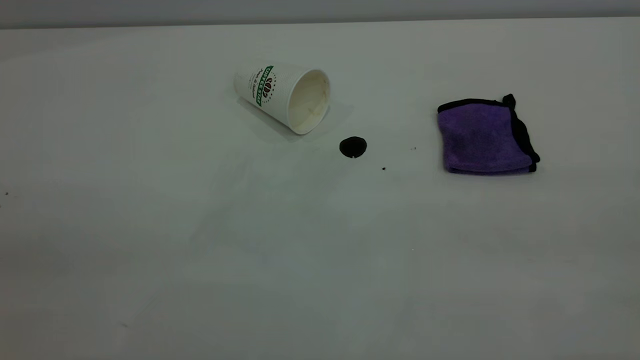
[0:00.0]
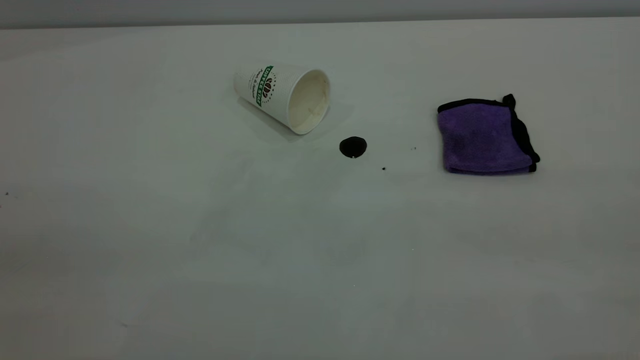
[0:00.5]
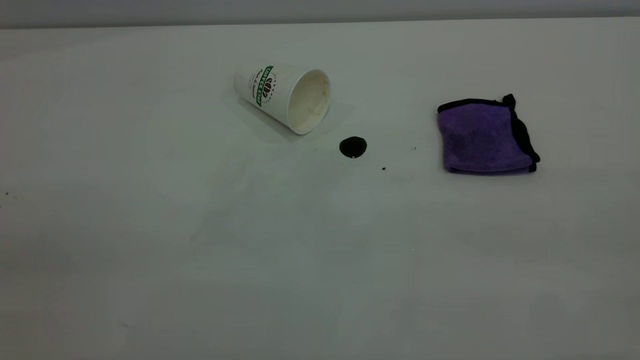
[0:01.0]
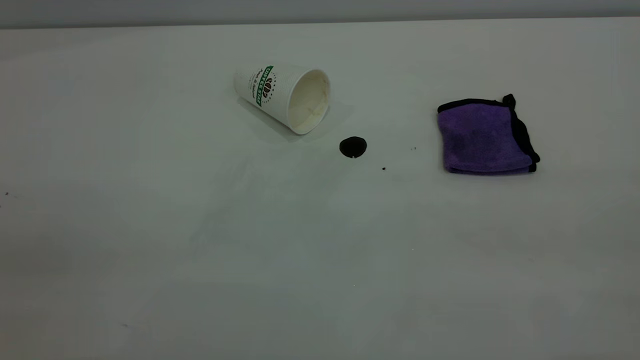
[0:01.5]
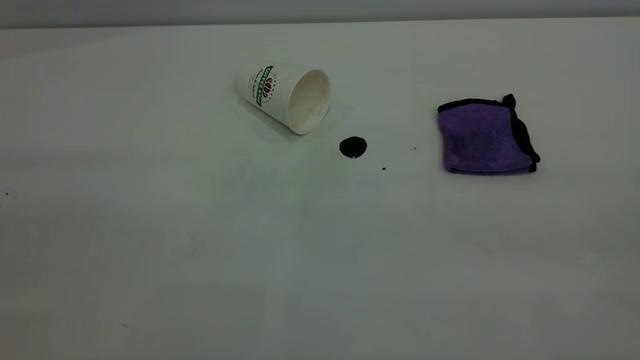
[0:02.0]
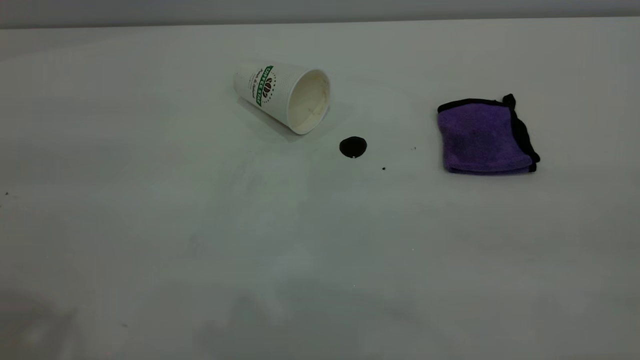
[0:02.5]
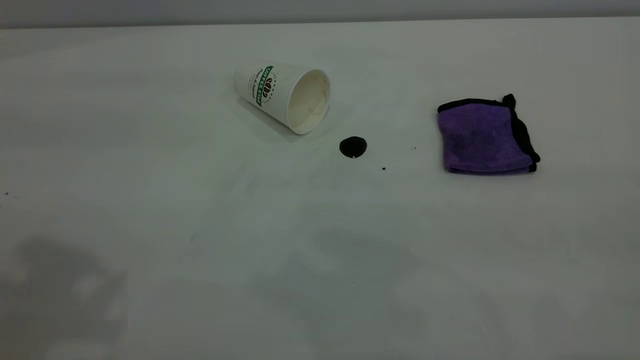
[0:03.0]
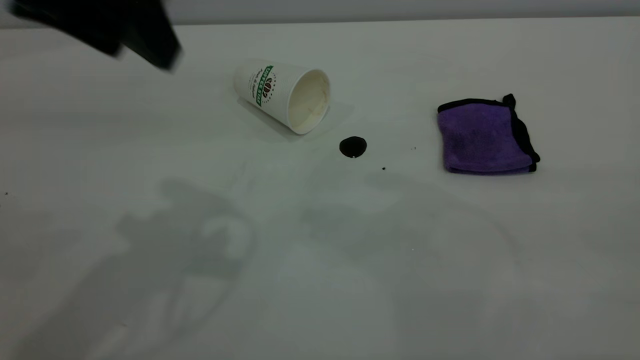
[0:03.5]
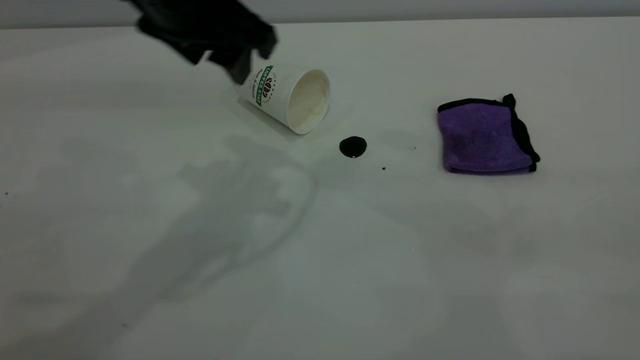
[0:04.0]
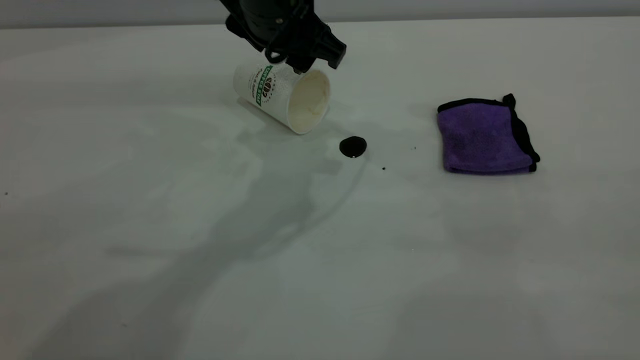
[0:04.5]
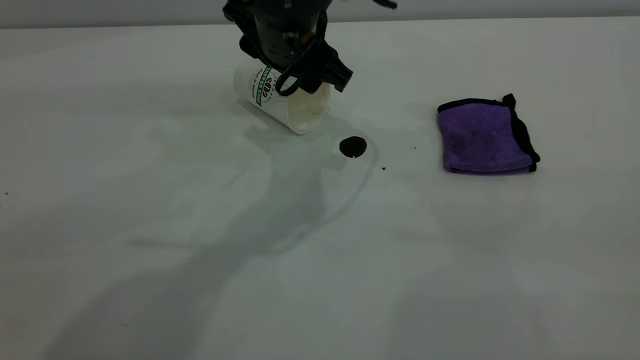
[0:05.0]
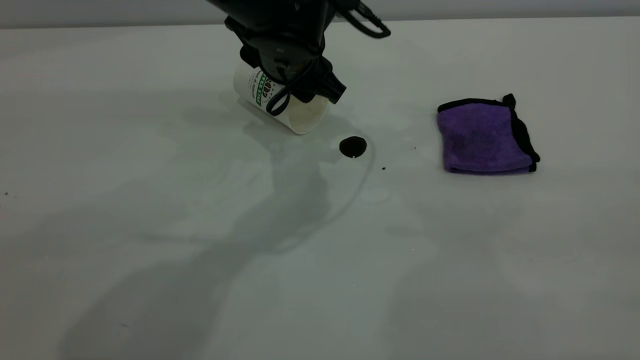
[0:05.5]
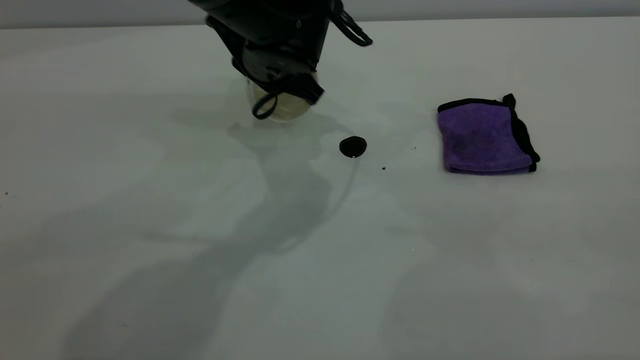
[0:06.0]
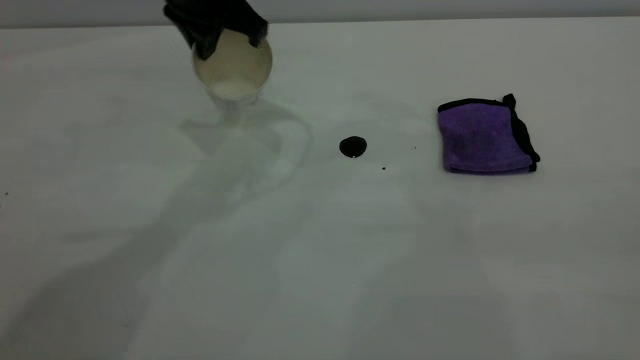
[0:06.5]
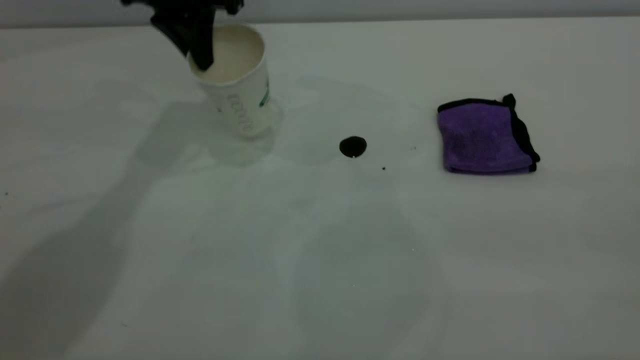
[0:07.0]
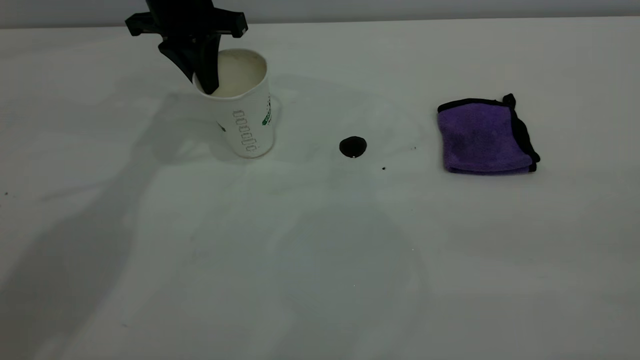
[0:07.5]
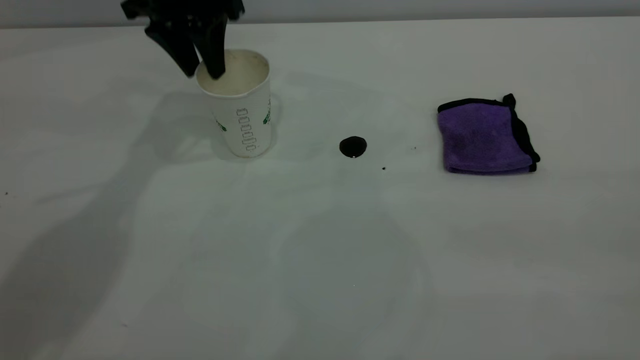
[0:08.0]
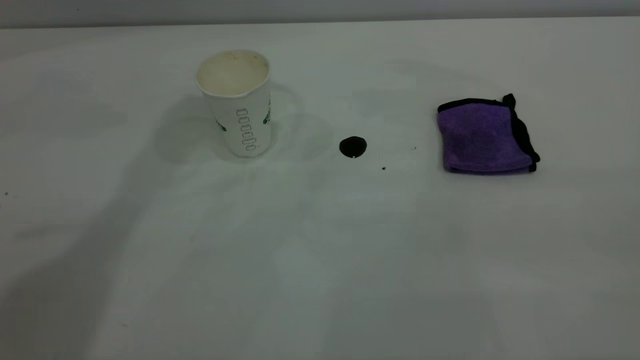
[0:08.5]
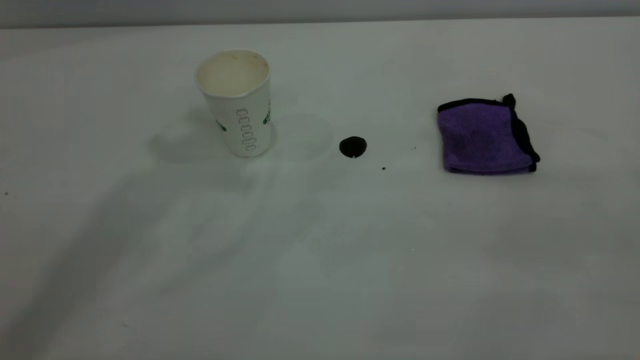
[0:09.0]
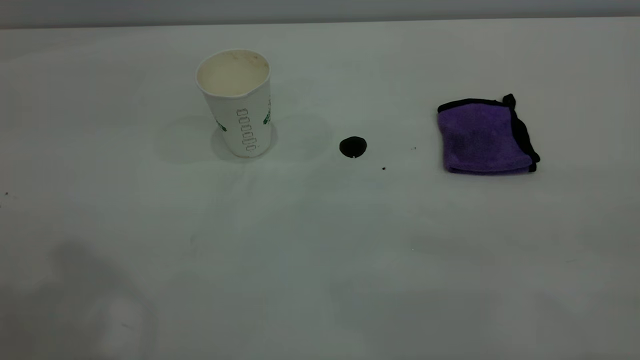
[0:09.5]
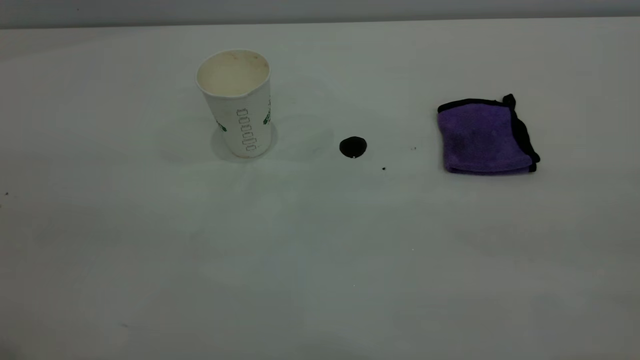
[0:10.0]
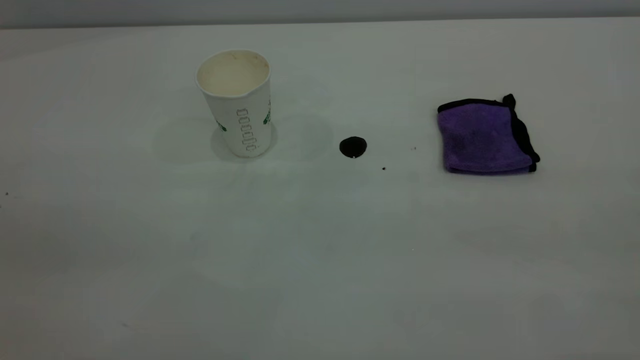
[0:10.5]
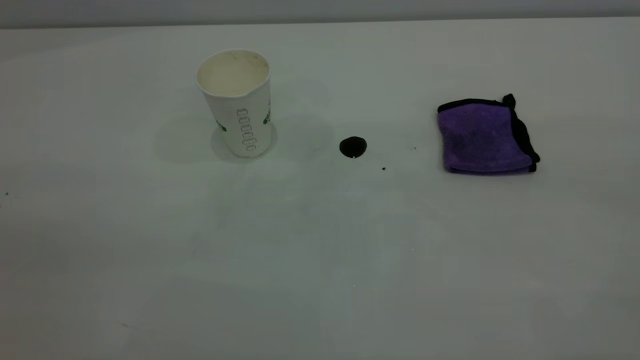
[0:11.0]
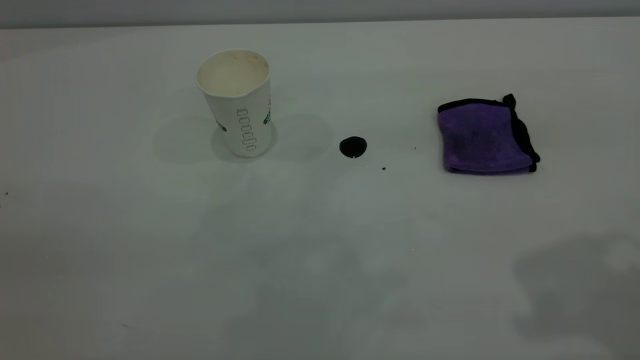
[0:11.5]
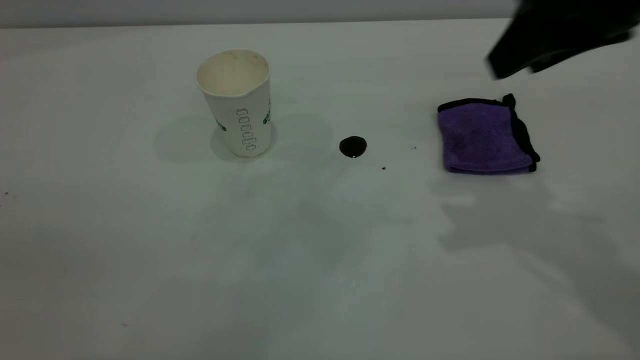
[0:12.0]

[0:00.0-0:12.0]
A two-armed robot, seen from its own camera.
Task of the whole recording: the left gripper pick up the fallen cup and place it upright, the right gripper grasp the purple rag and wipe the coffee stain on the table, the right gripper put the purple rag back in its original position.
Step, 0:00.0 to 0:08.0: Stand the paper cup upright.
0:02.0 to 0:04.0: The left gripper goes approximately 40 cm forward, to the right and downward.
0:04.0 to 0:06.0: The left gripper travels downward and forward by some 15 cm, and closes its fingers.
0:06.0 to 0:08.0: The left gripper goes roughly 15 cm to the left, forward and upward, and opens up.
0:08.0 to 0:10.0: The left gripper goes some 40 cm backward.
0:10.0 to 0:12.0: The right gripper is displaced forward by roughly 30 cm.

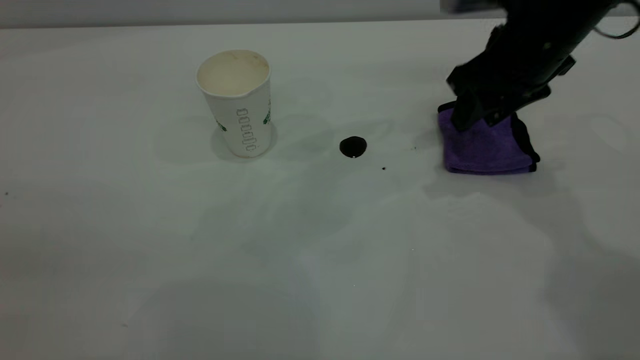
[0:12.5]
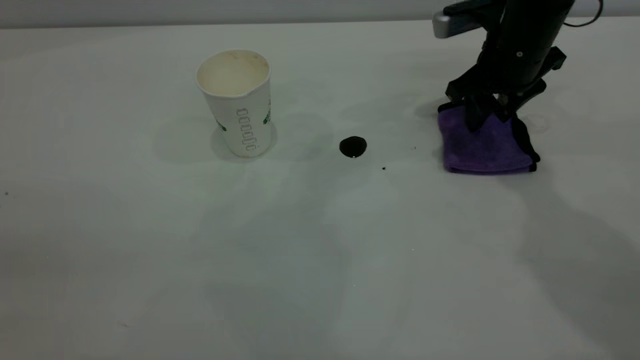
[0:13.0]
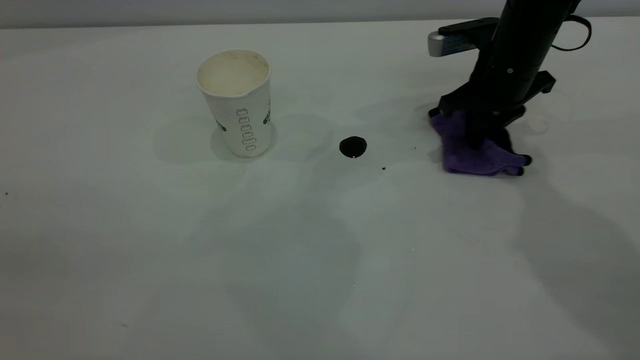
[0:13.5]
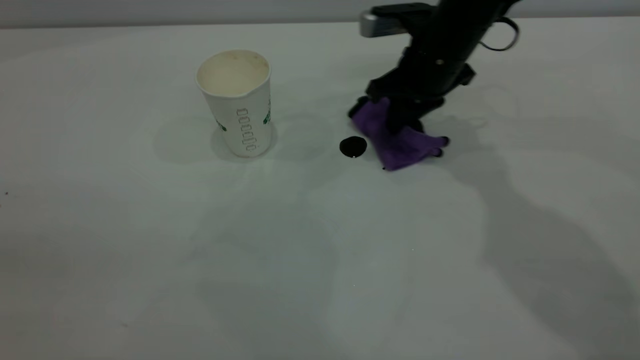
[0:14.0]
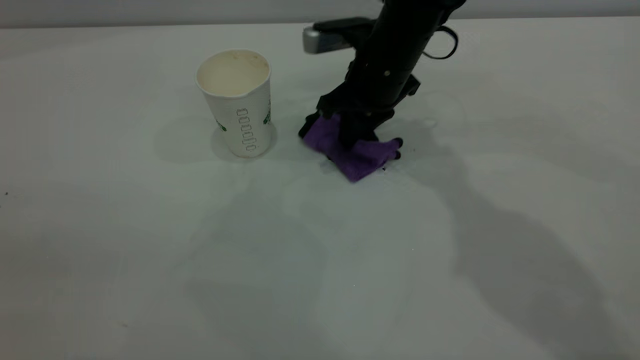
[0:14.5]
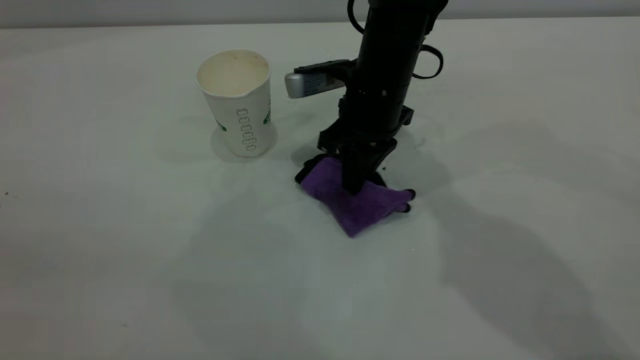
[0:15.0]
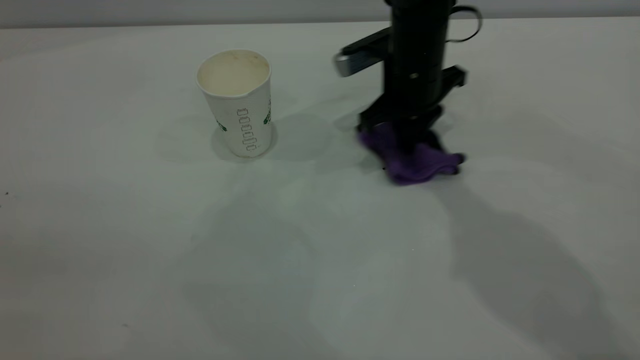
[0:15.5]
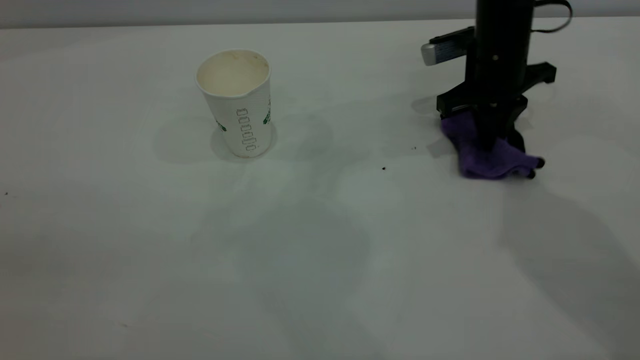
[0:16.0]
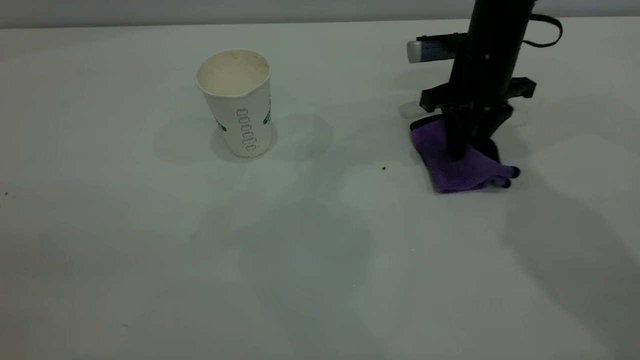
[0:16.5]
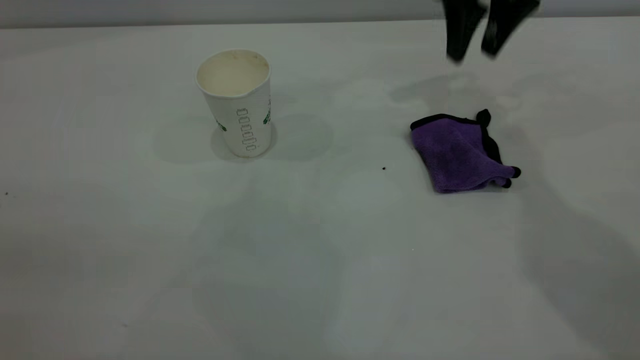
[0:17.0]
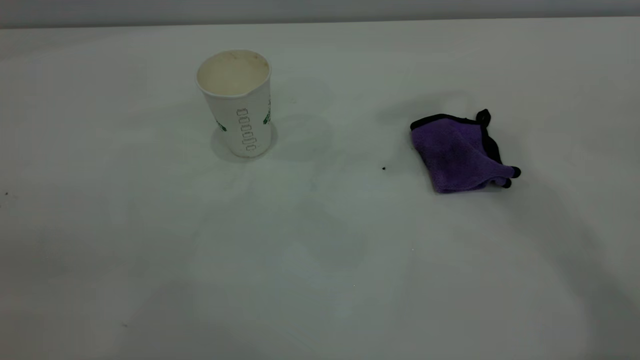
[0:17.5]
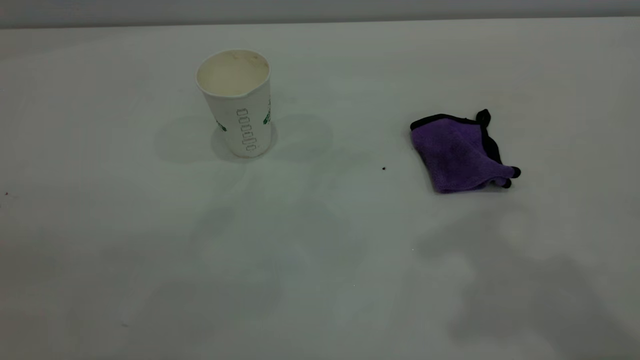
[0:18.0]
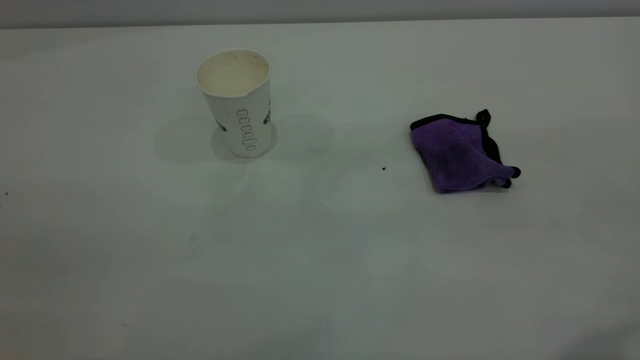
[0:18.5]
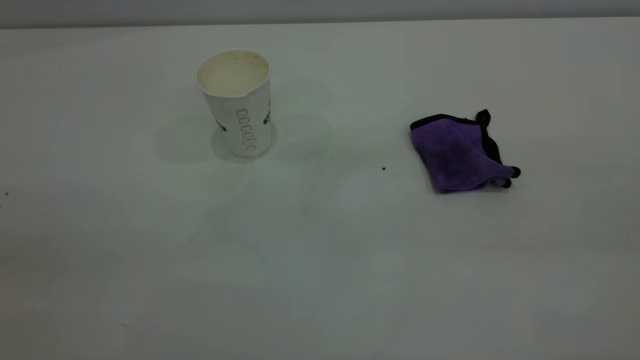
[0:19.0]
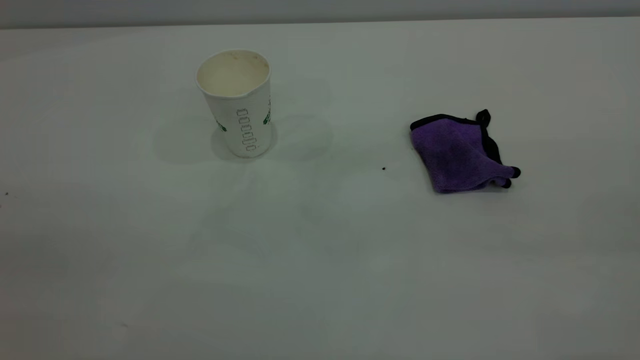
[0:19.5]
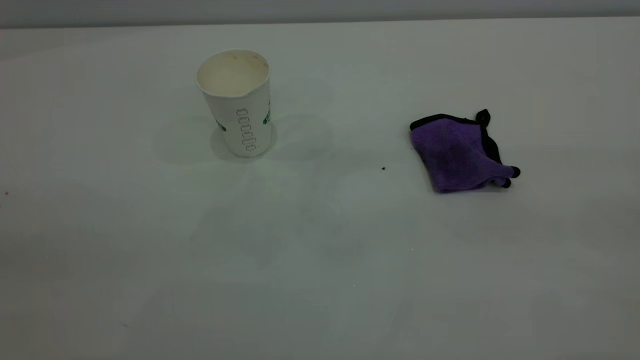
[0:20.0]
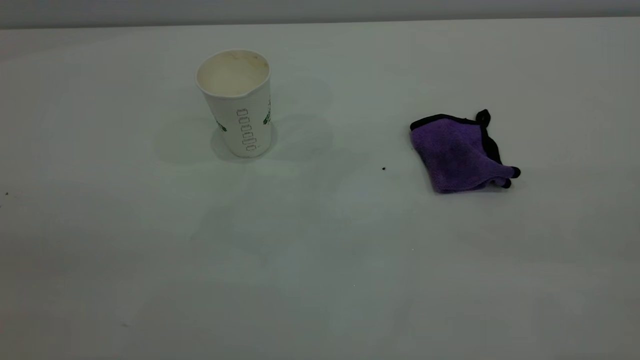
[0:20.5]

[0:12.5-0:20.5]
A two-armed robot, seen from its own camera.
Task of the whole recording: the left gripper pick up the fallen cup and place it upright, the right gripper grasp the purple rag and wipe the coffee stain on the table, the right gripper put the purple rag back in its original position.
Step, 0:12.5 to 0:16.5: Wipe the stains off the table with a rag.
0:12.5 to 0:14.5: The right gripper is displaced to the left and downward by some 15 cm, and closes.
0:14.5 to 0:16.5: The right gripper shifts about 10 cm to the right, and opens.
0:16.5 to 0:18.5: The right gripper heads backward and upward, covering roughly 40 cm.
